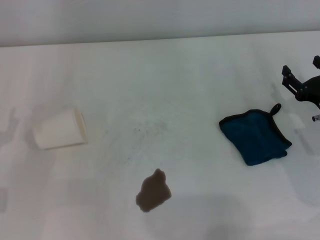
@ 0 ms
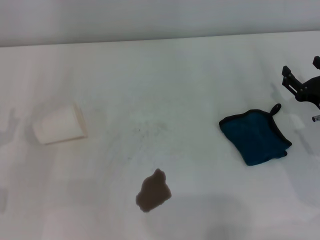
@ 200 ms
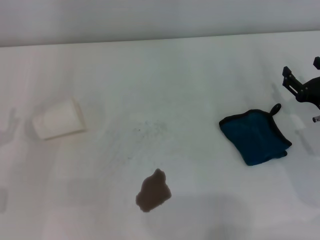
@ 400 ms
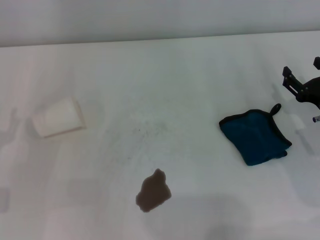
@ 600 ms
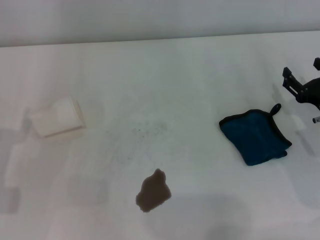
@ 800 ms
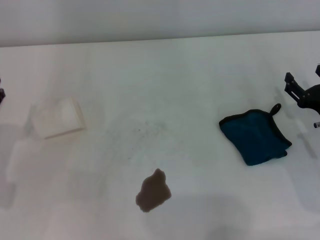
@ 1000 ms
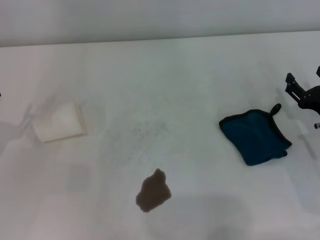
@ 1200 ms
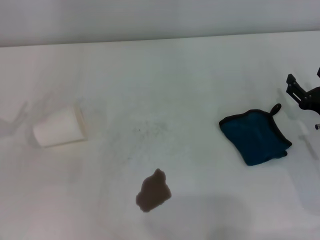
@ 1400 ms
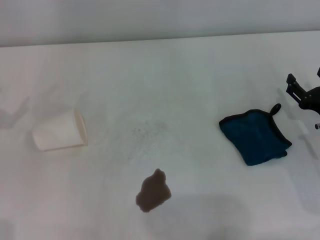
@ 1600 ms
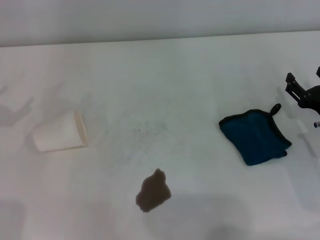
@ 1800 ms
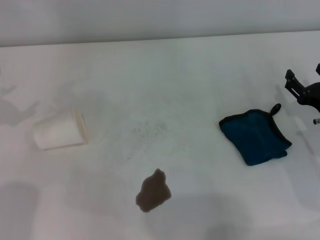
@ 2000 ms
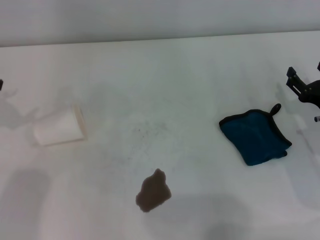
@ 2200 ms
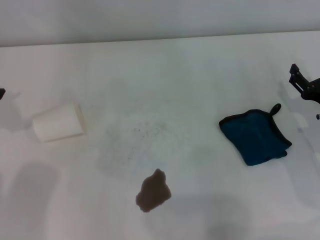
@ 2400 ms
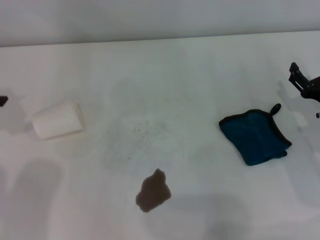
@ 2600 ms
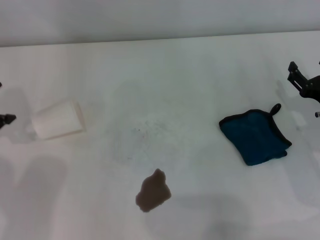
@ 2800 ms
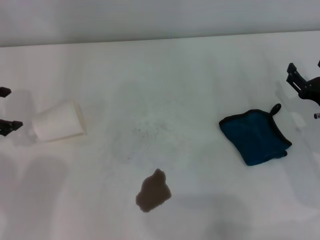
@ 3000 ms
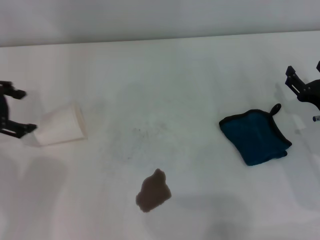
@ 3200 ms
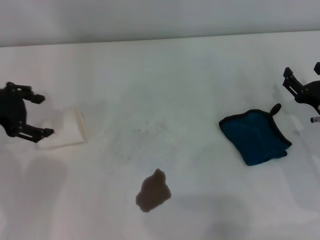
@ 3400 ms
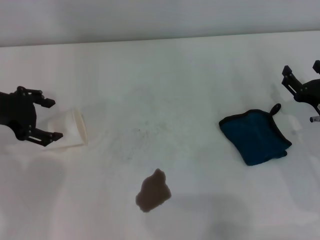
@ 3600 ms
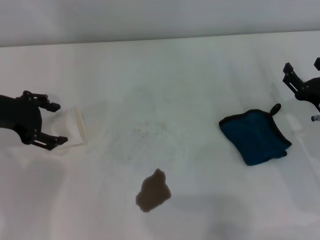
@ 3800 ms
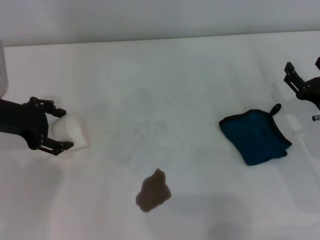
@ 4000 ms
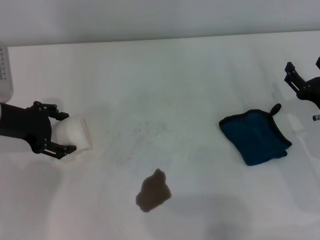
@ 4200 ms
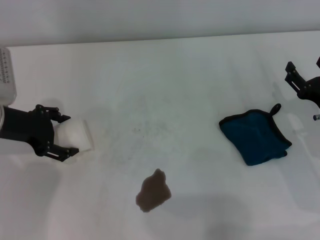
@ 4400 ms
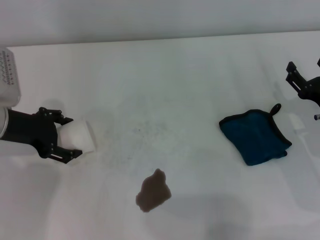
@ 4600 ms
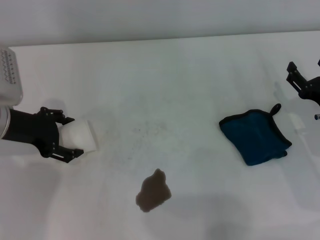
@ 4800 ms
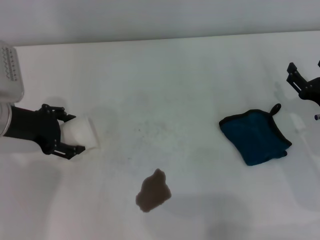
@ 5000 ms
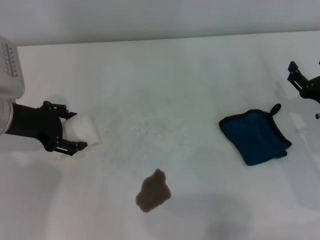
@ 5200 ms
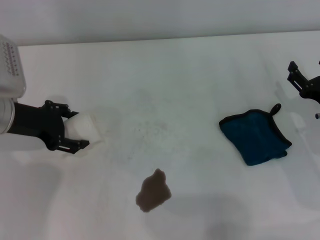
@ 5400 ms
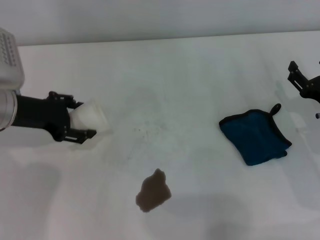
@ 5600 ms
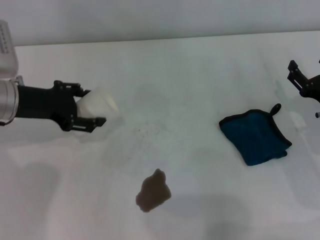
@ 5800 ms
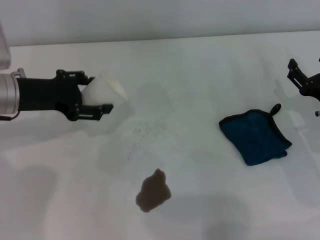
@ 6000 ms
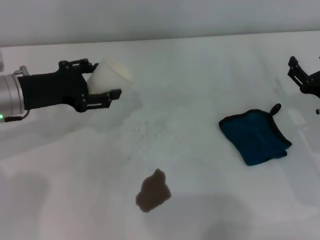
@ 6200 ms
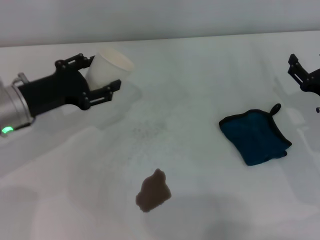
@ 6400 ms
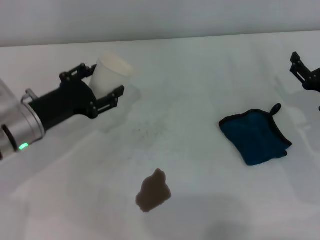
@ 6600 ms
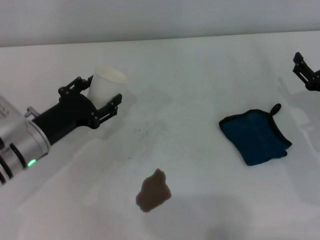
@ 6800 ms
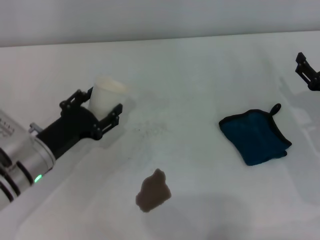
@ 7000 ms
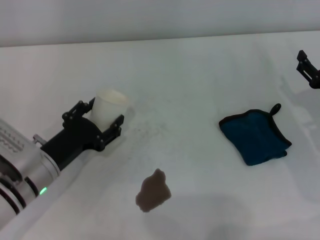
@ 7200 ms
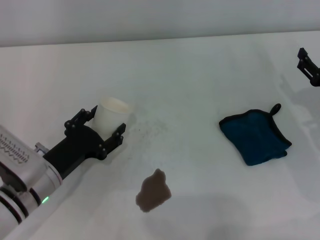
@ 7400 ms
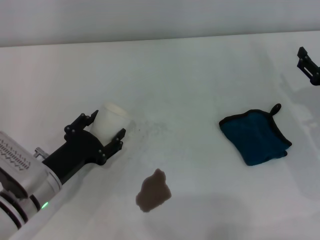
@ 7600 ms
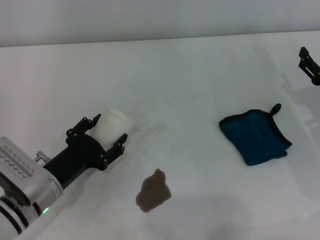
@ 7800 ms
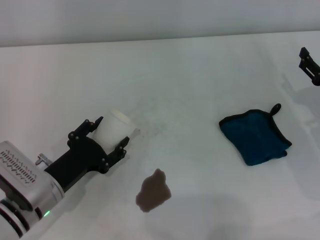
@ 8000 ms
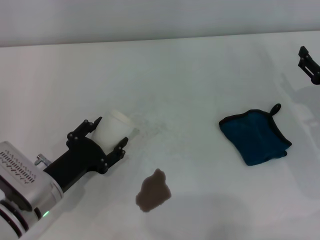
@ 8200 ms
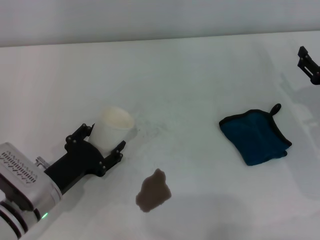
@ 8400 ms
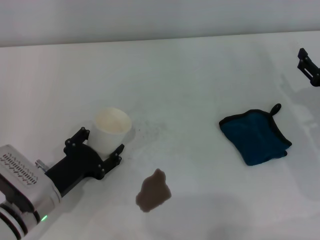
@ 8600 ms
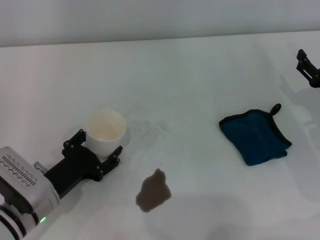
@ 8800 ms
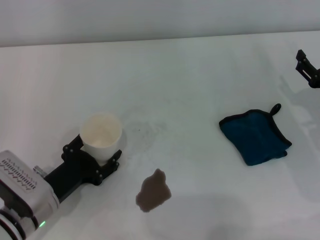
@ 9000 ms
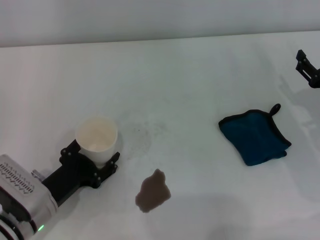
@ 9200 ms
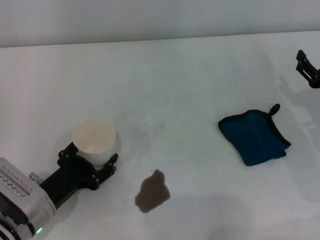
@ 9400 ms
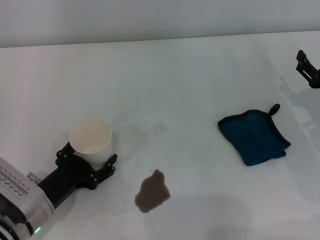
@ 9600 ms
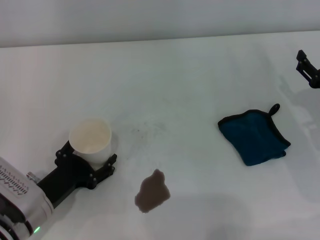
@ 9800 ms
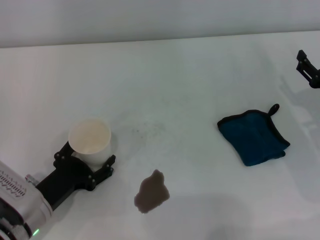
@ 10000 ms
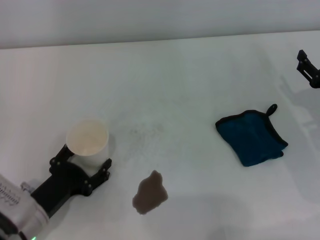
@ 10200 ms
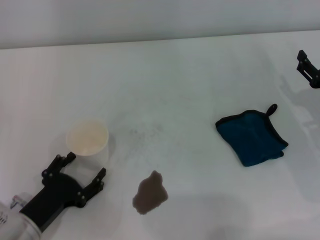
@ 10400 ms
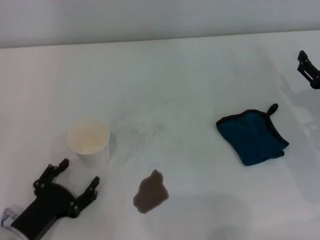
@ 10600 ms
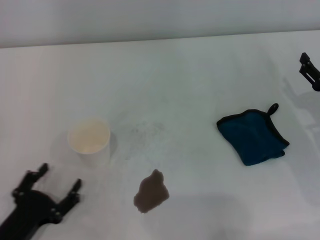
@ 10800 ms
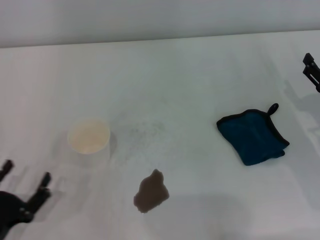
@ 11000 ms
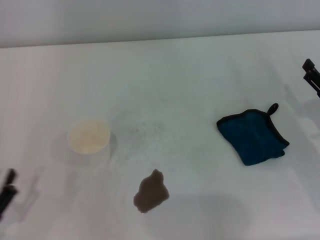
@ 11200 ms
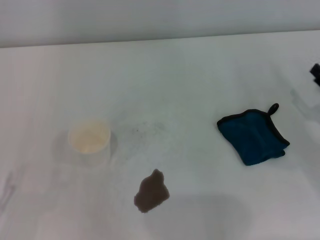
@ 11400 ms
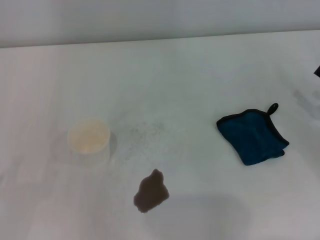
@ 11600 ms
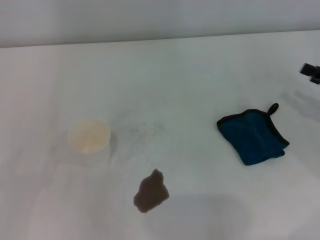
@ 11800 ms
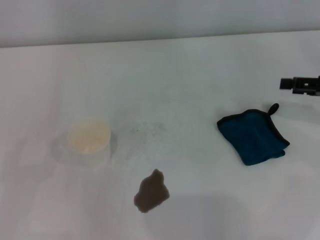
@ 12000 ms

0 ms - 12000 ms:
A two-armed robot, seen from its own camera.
Step, 0 ms - 5200 ms: Grasp the paper cup with the left gripper.
Step, 5400 ms - 9800 ms: Stand the paper cup upright with the left gripper.
1600 ms - 3000 ms: The left gripper heads upward and forward, covering some 10 cm.
3000 ms - 4400 ms: The left gripper heads downward and to the right, covering roughly 10 cm.
6000 ms - 7600 ms: The left gripper goes approximately 15 cm downward and backward.
7600 ms - 9000 ms: The grippers stay close to where they were, moving slightly.
9000 ms - 10400 ms: The left gripper shifts by about 5 cm.
10400 ms - 12000 ms: The left gripper travels to the left and upward by approximately 15 cm, while the right gripper goes about 10 cm upward.

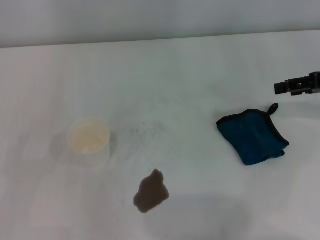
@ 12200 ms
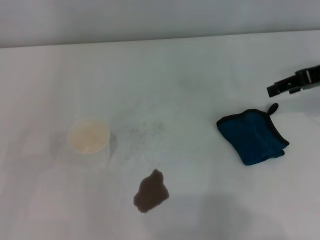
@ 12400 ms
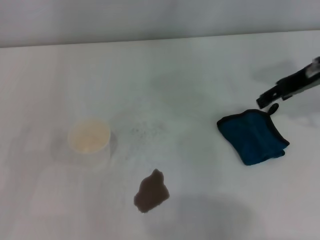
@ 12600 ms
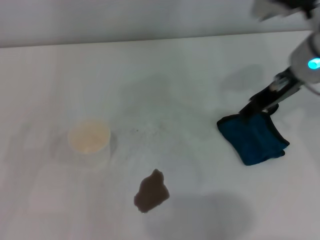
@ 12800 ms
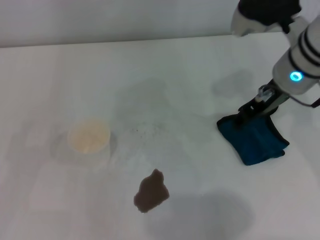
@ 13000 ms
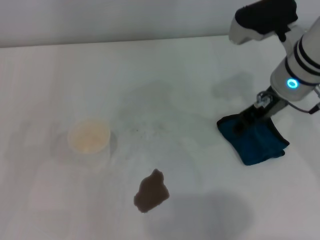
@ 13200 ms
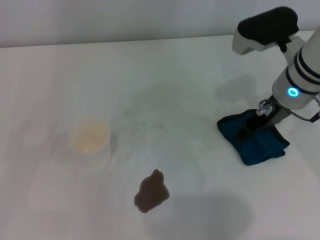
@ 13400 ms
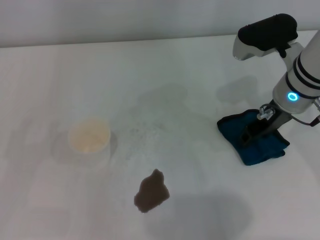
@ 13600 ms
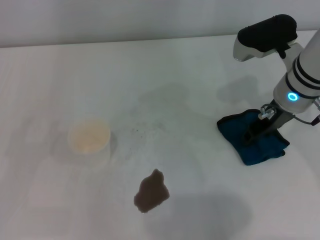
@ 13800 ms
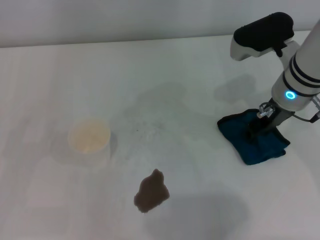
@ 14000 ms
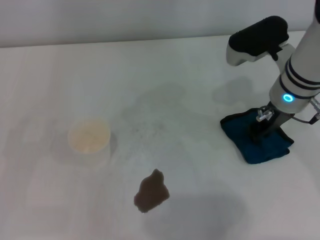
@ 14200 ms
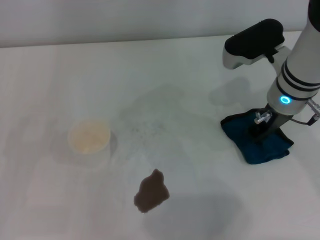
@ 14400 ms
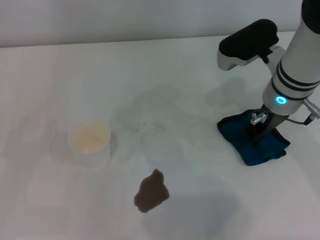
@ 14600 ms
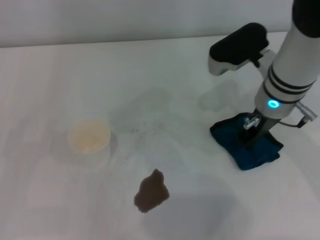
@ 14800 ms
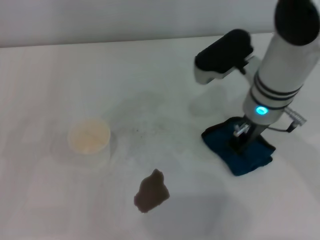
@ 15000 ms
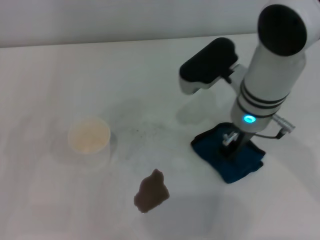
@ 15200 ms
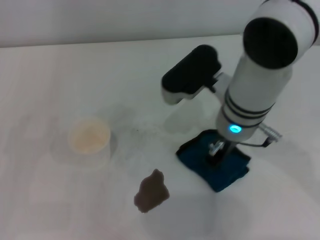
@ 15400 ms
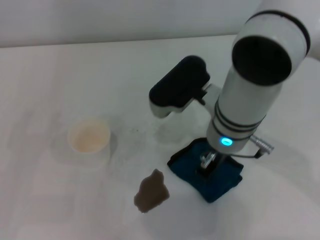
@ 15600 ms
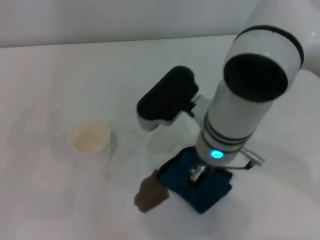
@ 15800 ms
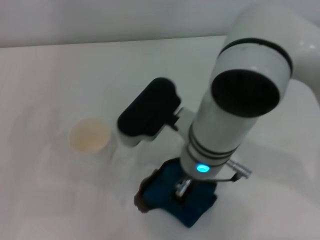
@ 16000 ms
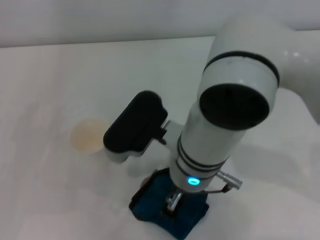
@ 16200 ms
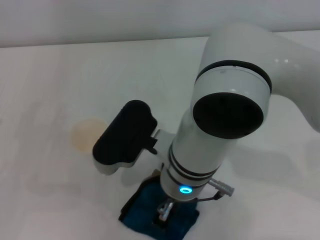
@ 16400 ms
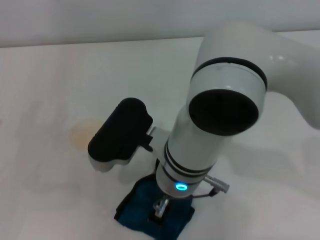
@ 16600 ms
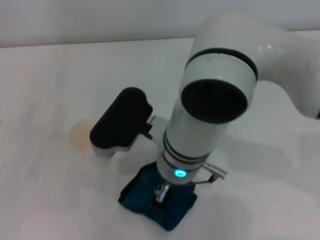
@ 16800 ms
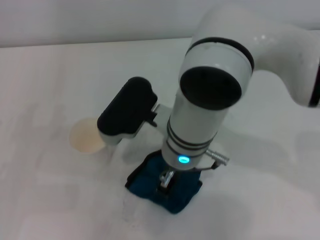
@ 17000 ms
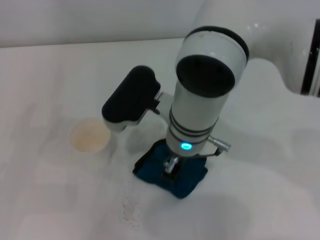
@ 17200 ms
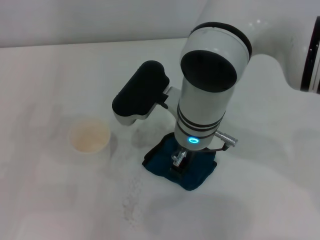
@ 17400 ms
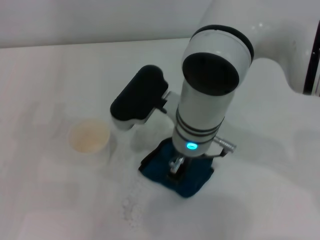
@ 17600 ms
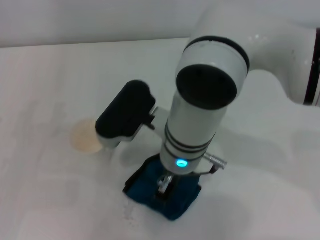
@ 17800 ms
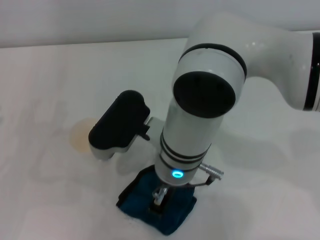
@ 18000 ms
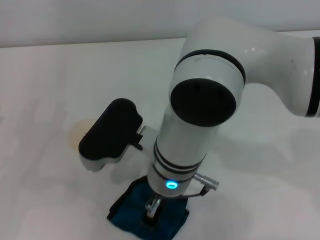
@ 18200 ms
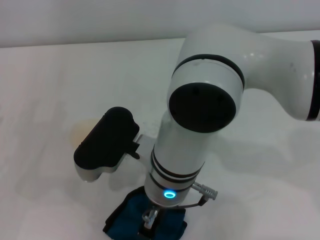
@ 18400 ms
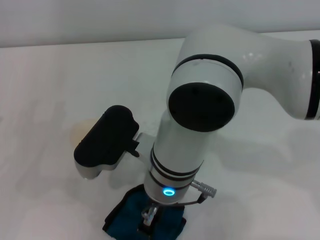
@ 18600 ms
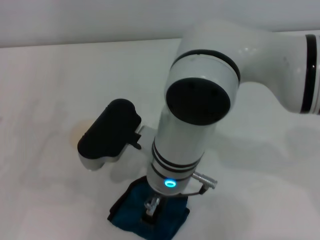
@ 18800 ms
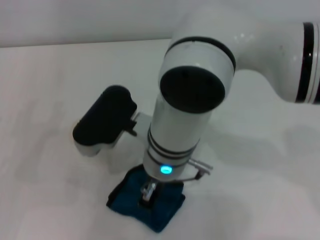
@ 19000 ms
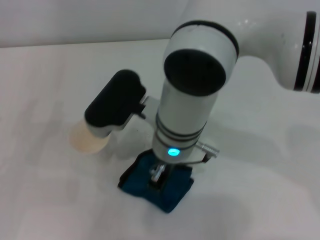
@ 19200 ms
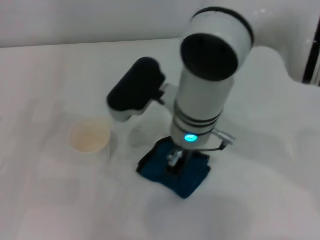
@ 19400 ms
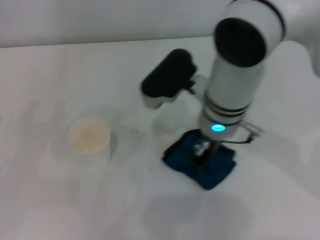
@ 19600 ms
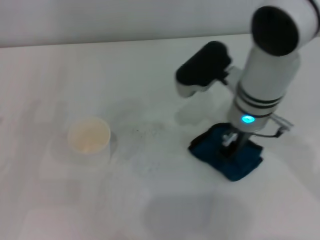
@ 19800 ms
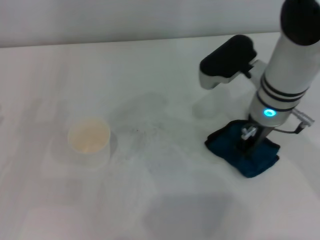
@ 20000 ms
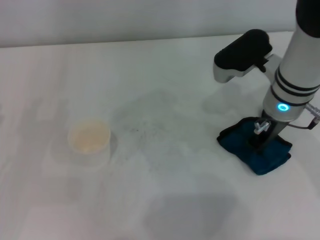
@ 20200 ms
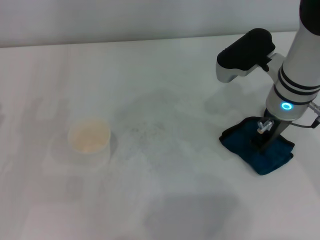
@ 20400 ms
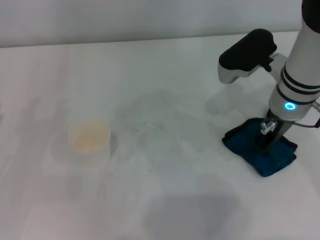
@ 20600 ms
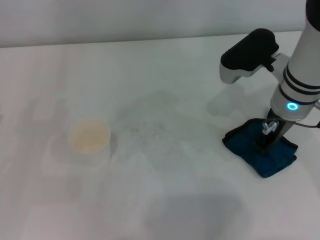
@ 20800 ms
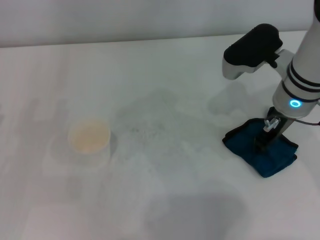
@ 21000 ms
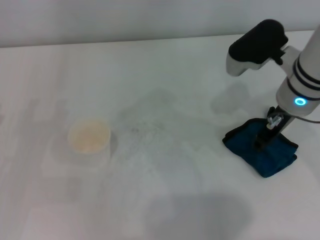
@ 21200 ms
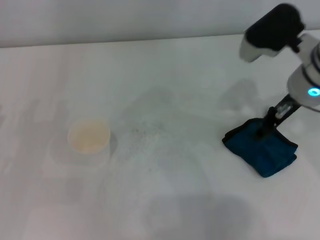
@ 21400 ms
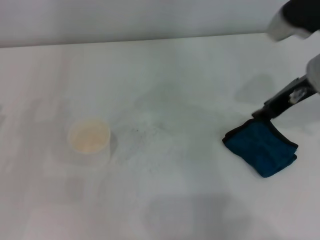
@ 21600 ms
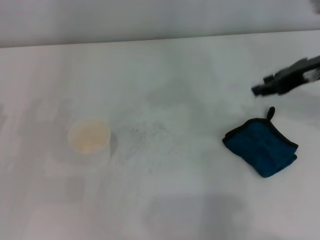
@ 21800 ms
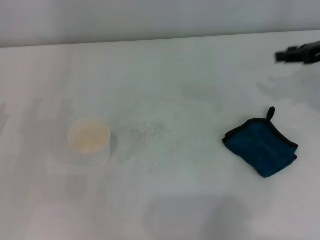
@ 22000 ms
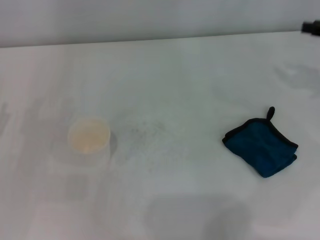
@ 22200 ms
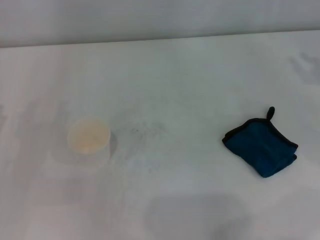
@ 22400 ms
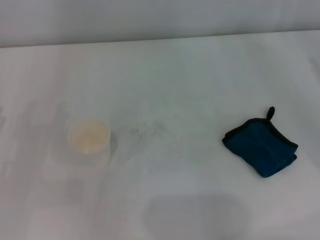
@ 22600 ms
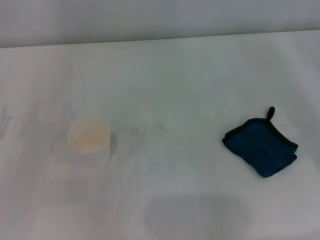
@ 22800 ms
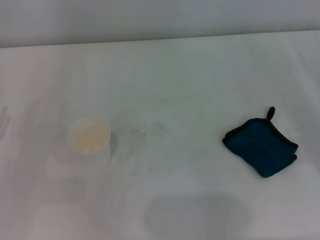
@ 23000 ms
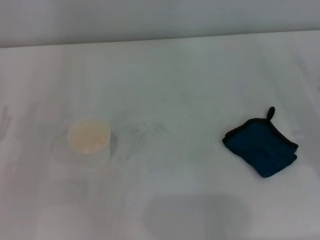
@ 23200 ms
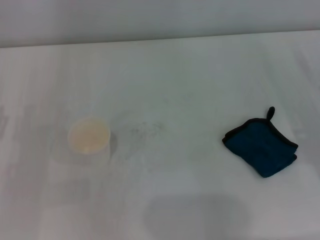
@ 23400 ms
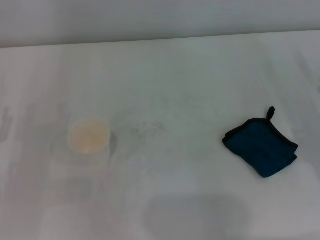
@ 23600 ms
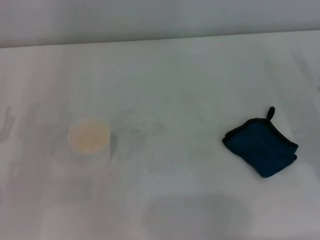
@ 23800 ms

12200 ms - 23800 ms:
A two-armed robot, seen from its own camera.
Step, 12200 ms - 14400 ms: Grasp the rag with the right gripper.
Step, 14600 ms - 20200 ms: Wipe the stains off the table with the right gripper.
Step, 20400 ms - 21000 ms: Place the rag on the table with the right gripper.
12200 ms - 13600 ms: The right gripper travels to the left by about 15 cm.
13600 ms - 15000 ms: The right gripper moves to the left, some 5 cm, and closes.
15000 ms - 16600 ms: The right gripper shifts roughly 15 cm to the left and backward.
19400 ms - 21000 ms: The right gripper moves to the right, approximately 15 cm.
21000 ms - 22400 ms: The right gripper shifts about 20 cm to the right.
